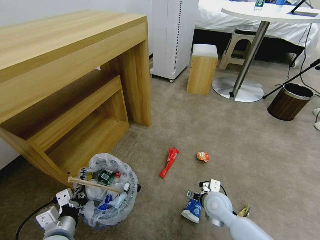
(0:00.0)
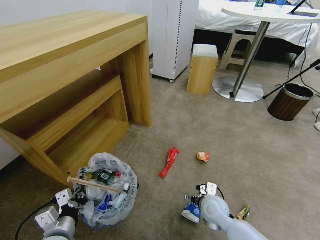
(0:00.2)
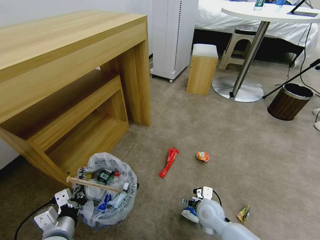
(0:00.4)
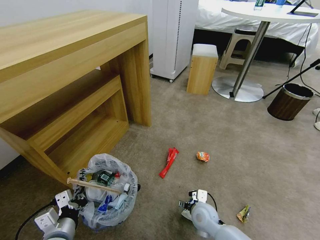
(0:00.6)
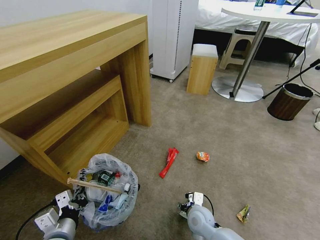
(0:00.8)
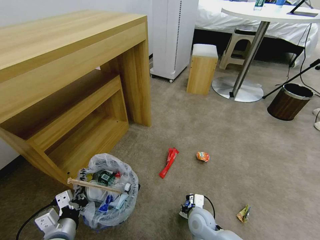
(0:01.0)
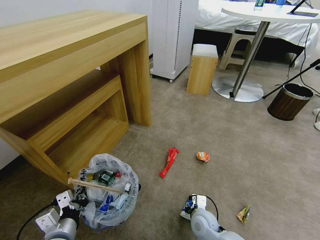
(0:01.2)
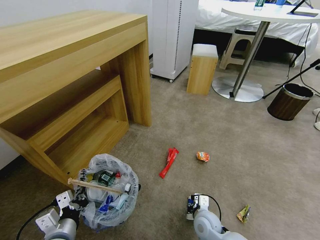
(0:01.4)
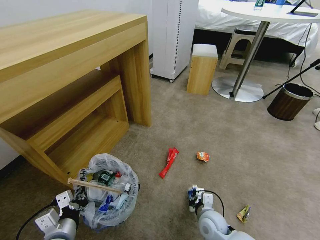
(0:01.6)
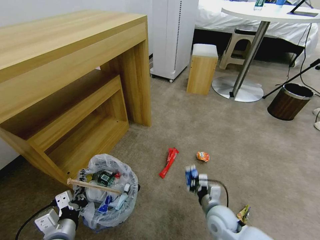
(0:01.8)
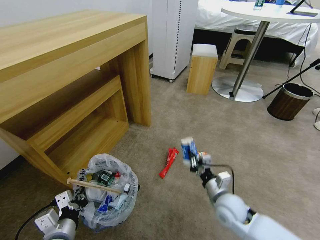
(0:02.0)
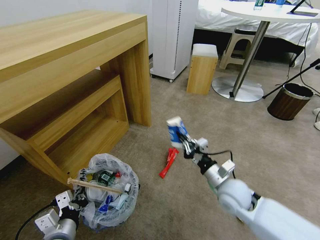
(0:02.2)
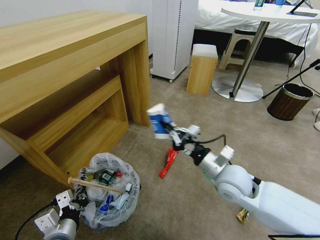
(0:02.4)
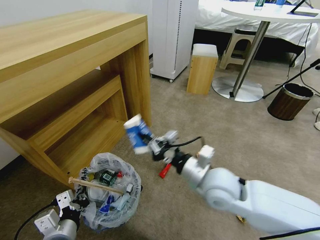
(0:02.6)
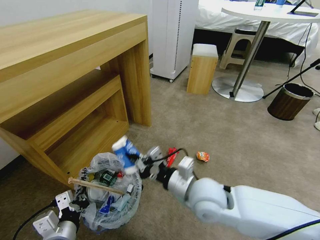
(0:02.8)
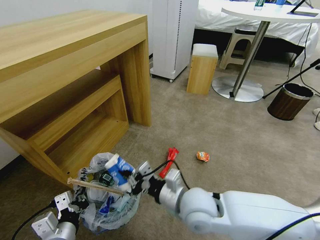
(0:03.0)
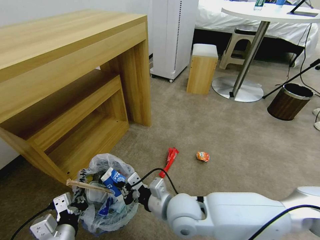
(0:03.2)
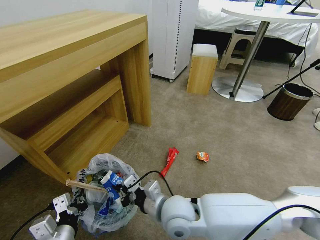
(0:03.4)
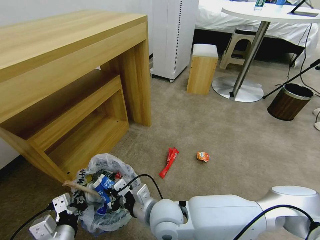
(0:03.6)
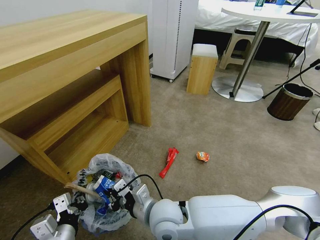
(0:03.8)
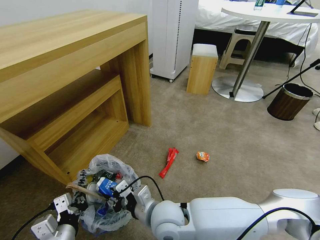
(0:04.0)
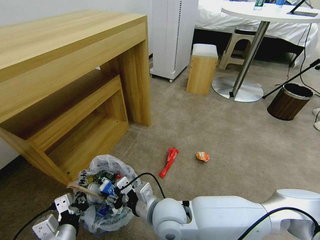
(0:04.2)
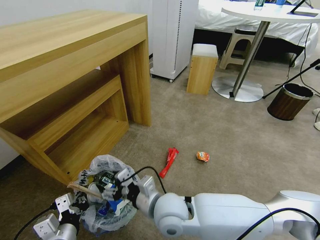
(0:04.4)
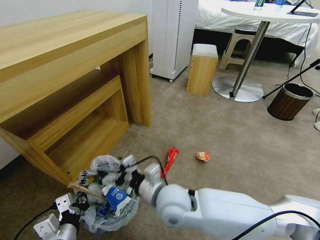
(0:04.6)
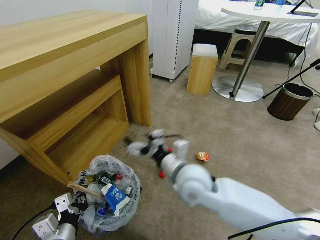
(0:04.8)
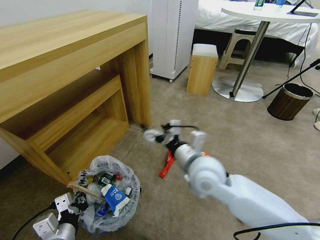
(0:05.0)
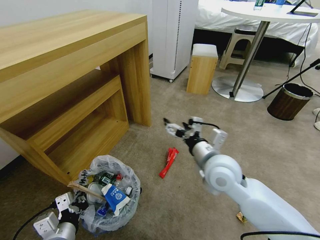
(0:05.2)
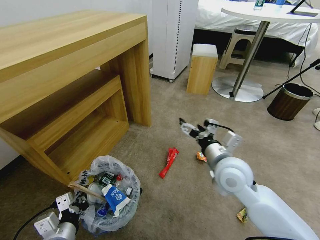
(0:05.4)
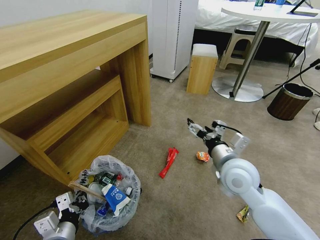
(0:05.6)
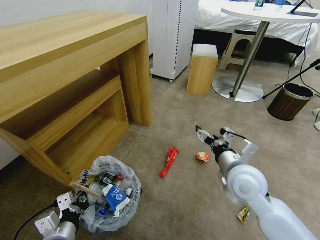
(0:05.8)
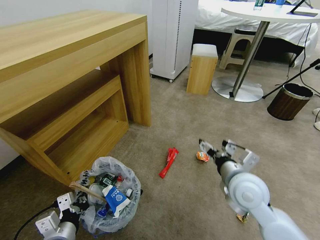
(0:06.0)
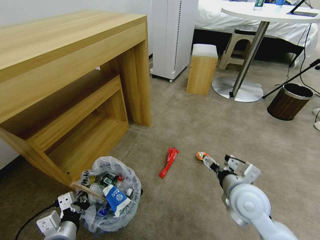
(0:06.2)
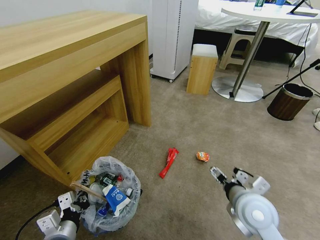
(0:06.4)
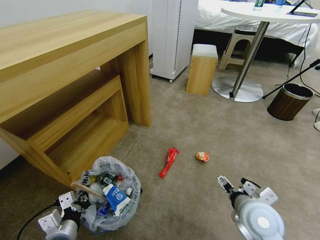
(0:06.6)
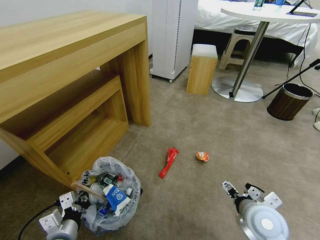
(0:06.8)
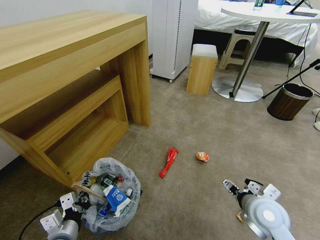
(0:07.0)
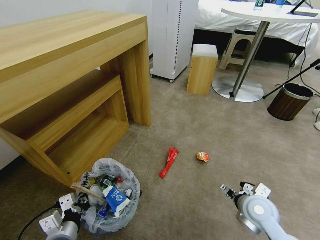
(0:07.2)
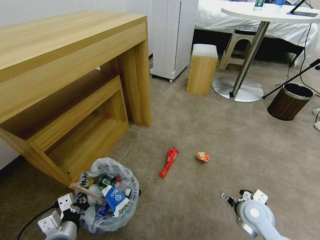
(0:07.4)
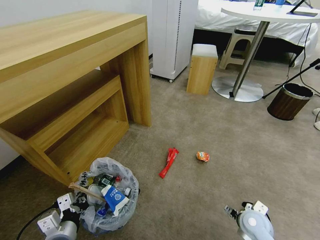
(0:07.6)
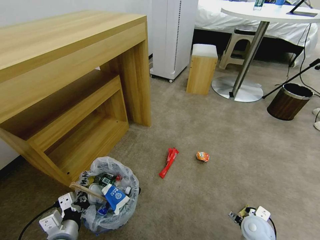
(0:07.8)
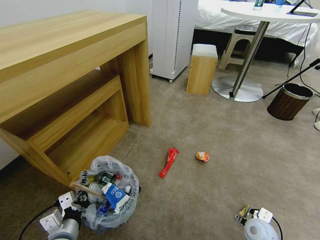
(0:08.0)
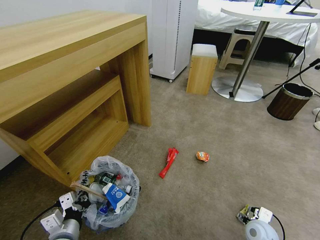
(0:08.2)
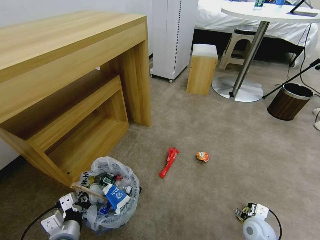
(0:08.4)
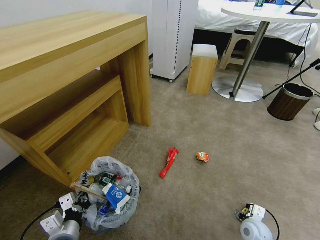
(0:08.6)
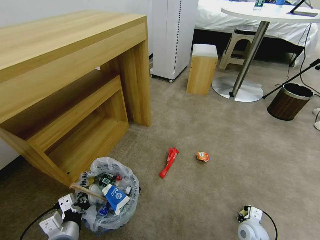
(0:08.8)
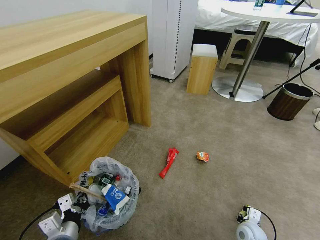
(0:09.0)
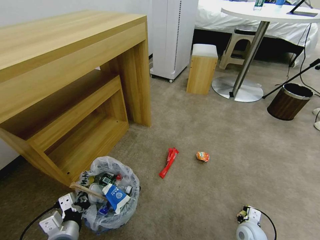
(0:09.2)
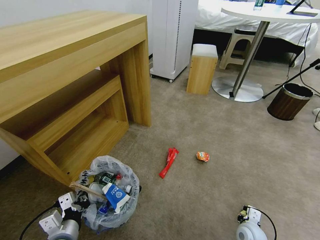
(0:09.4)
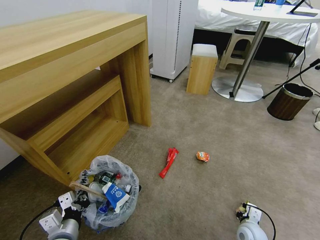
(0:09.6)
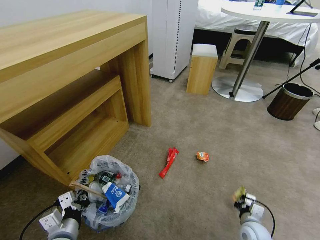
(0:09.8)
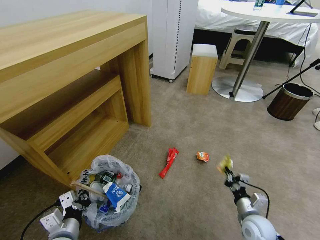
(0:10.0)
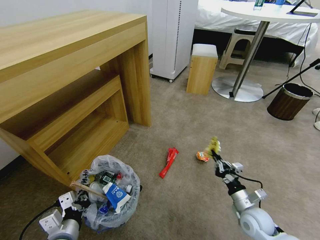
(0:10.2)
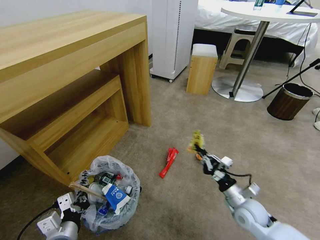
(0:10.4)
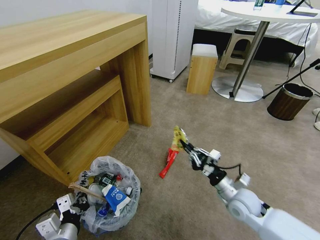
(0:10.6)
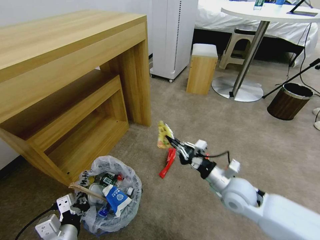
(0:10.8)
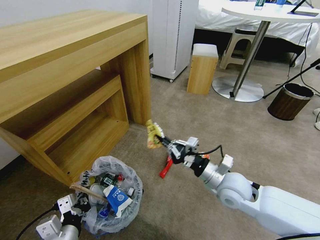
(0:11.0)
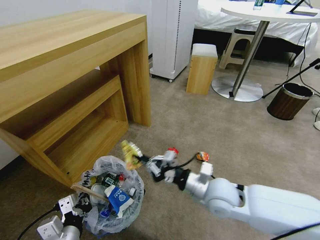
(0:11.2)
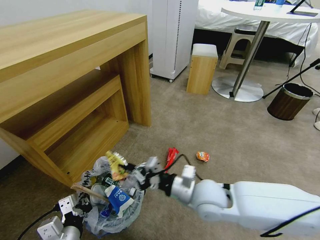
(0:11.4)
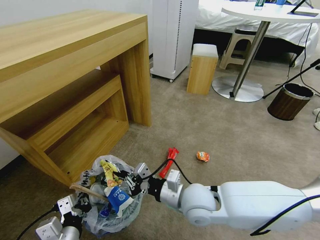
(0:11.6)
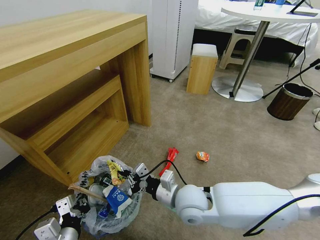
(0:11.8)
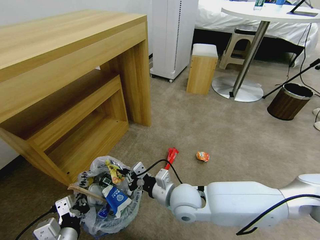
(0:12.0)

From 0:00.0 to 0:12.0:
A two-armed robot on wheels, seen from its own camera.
Task of the whole recording: Pick up the trash bin and place the garbage on the floor into it.
From 0:00.0 to 0:01.6: The right gripper travels downward by about 5 cm, and closes its fingers.
From 0:01.6 to 0:03.0: The right gripper shifts about 20 cm upward and to the left.
From 0:03.0 to 0:04.4: The right gripper heads to the left, covering some 5 cm, and opens.
From 0:04.4 to 0:06.0: The right gripper heads to the right, covering roughly 20 cm.
From 0:06.0 to 0:07.6: The right gripper travels downward and to the right by about 20 cm.
From 0:07.6 to 0:09.0: The right gripper goes approximately 10 cm downward, and closes up.
From 0:09.0 to 0:10.4: The right gripper goes roughly 10 cm upward, and closes its fingers.
From 0:10.4 to 0:12.0: The right gripper moves to the left and upward, about 25 cm.

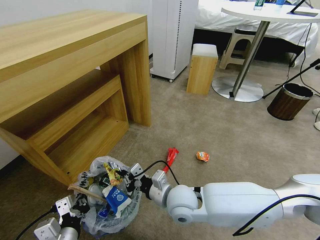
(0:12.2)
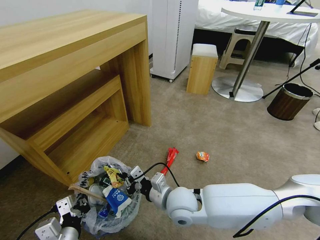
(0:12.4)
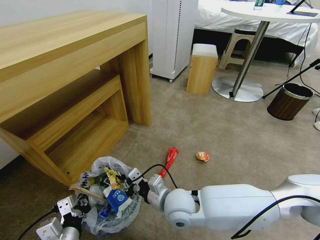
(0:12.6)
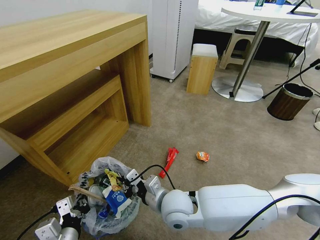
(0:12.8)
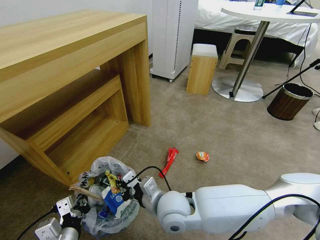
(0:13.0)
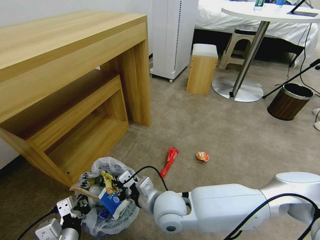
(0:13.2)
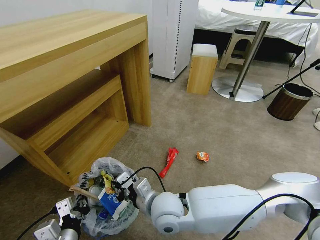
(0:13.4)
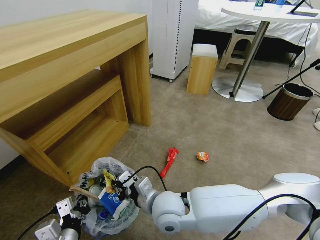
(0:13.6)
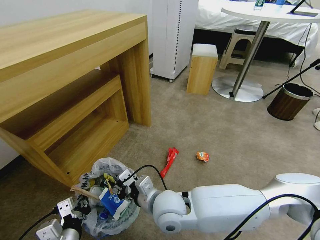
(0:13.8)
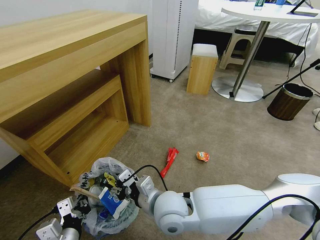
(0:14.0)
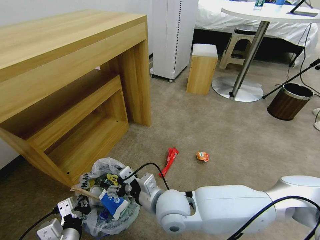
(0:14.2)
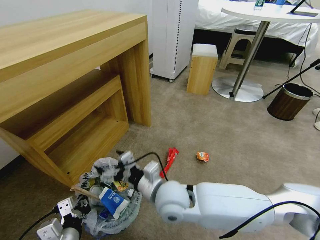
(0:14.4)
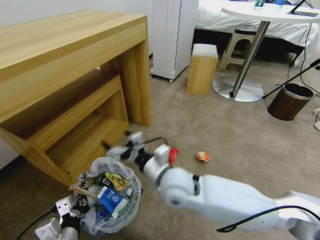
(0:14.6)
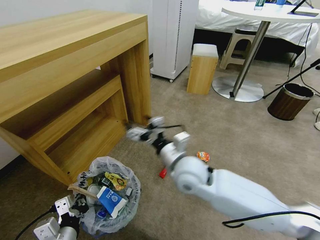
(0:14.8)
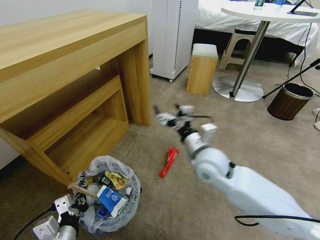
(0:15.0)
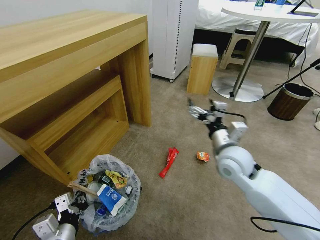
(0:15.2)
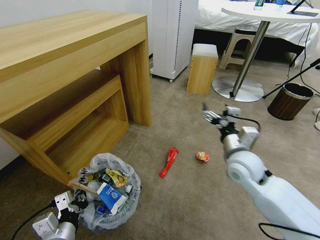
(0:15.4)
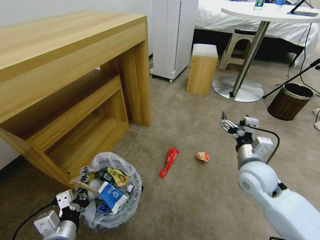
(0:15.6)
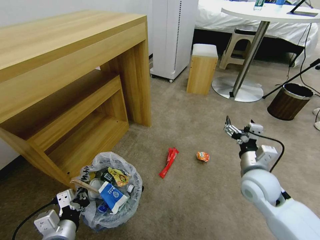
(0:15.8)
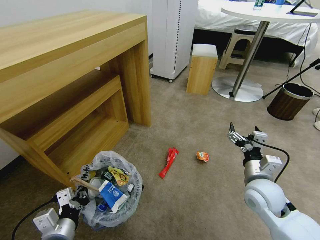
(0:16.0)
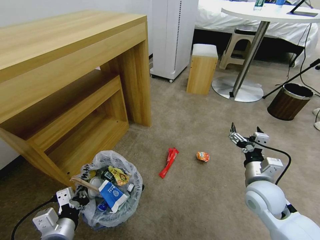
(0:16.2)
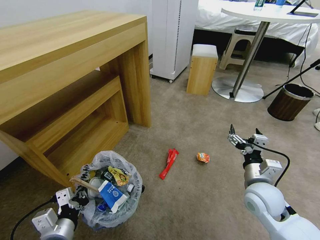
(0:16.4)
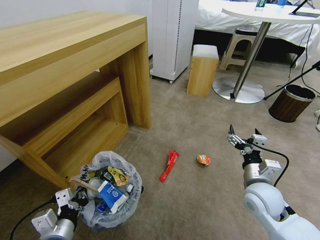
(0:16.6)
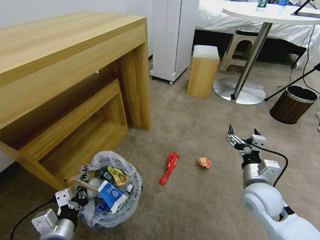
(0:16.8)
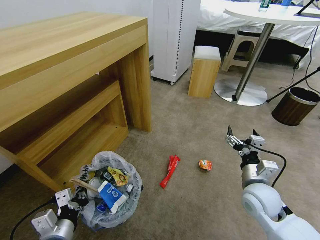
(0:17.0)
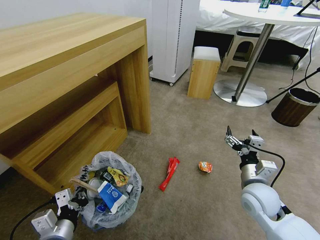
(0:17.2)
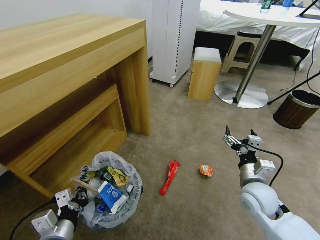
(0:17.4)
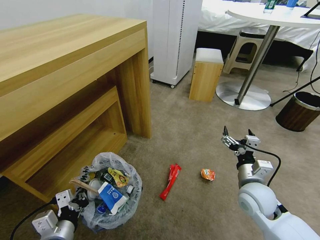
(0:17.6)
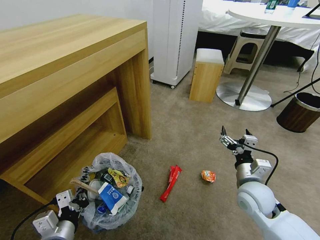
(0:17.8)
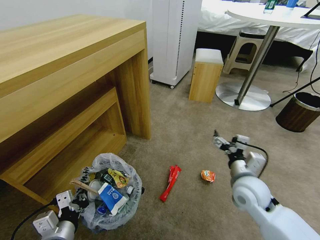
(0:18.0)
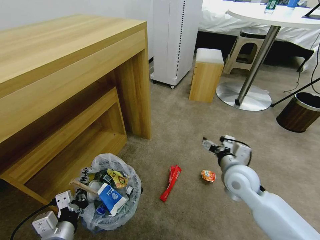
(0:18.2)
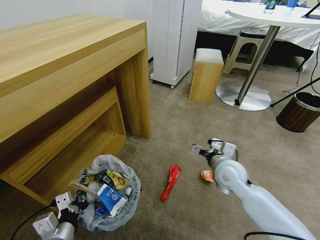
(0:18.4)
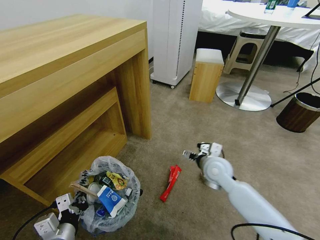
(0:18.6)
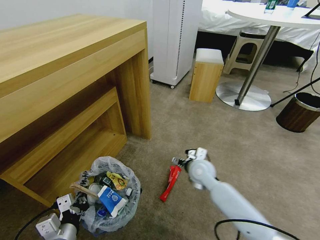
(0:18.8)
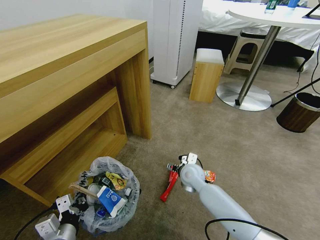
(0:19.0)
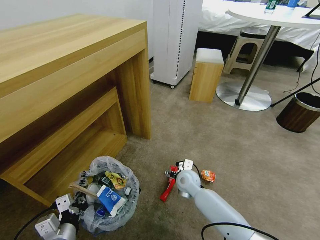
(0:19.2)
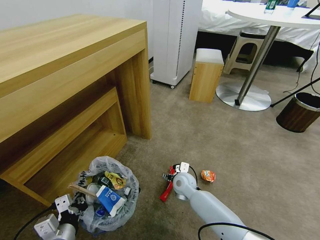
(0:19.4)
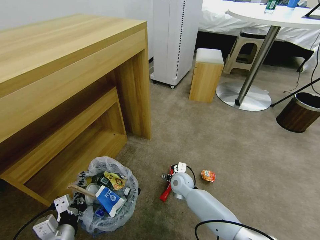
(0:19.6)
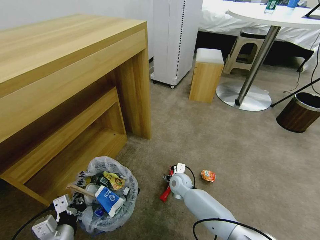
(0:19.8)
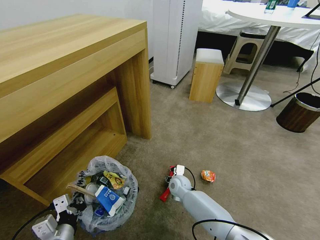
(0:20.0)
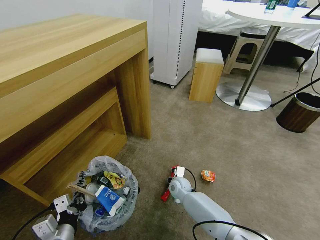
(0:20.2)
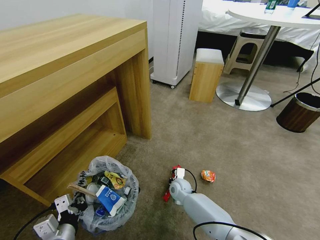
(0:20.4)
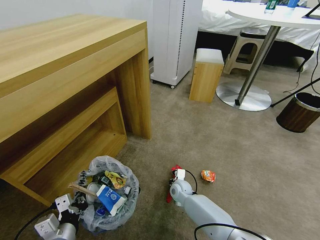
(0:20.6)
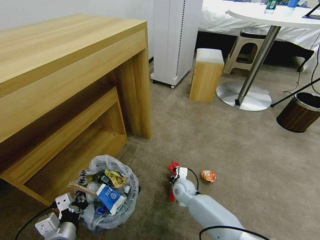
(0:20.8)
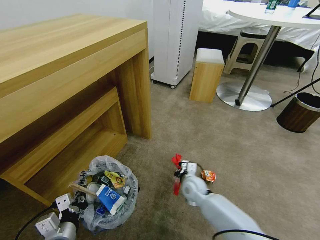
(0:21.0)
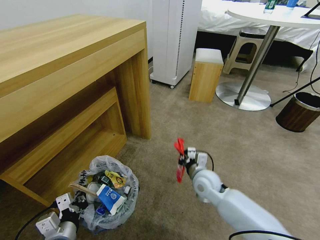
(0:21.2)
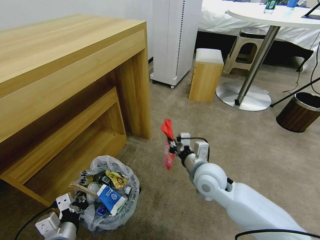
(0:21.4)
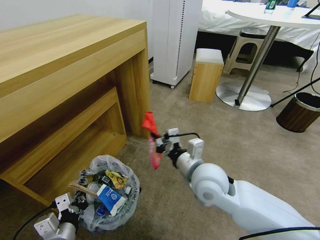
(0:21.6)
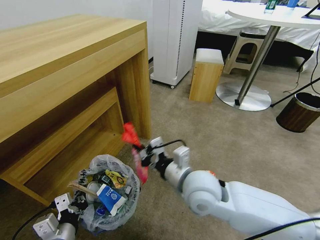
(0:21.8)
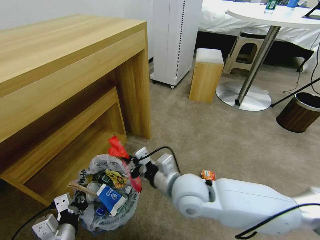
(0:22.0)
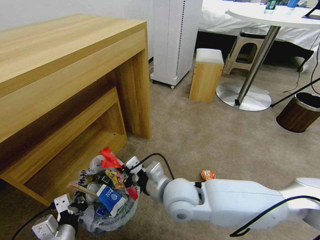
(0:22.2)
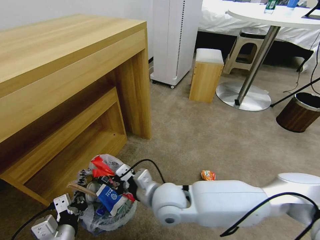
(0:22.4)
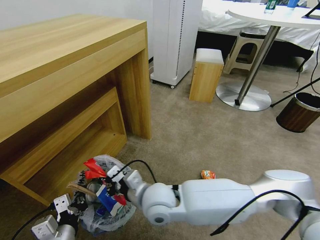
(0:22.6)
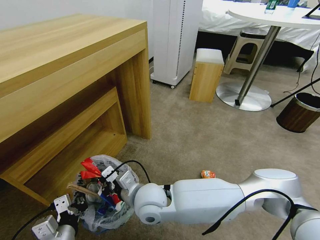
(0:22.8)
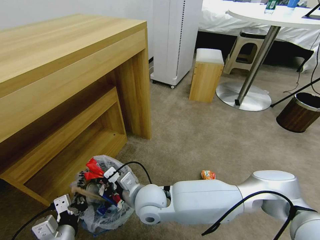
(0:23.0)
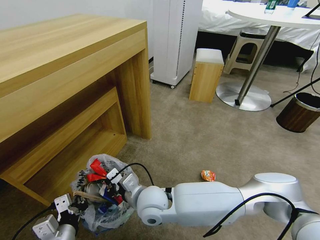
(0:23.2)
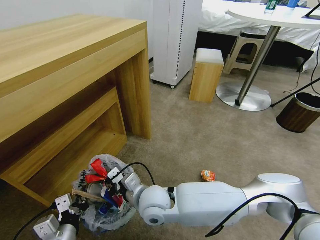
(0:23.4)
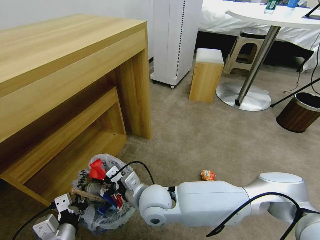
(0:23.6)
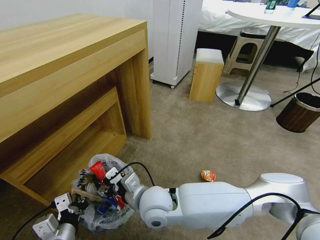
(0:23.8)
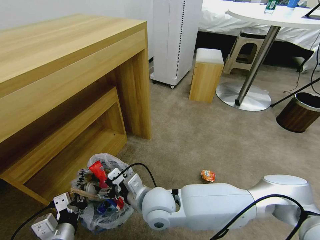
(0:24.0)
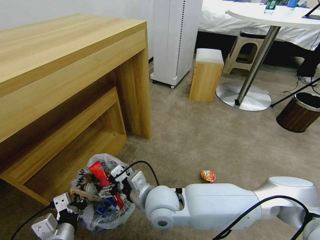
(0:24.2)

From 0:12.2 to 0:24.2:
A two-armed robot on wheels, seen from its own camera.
Task of the whole recording: Pick up the trash bin and place the garbage on the floor into it.
From 0:12.2 to 0:13.8: The right gripper shifts by about 5 cm.
From 0:13.8 to 0:15.2: The right gripper shifts approximately 20 cm to the right, forward and upward, and opens up.
From 0:15.2 to 0:16.6: The right gripper travels to the right, downward and backward by roughly 15 cm.
From 0:16.6 to 0:18.2: The right gripper heads to the left, covering some 5 cm.
From 0:18.2 to 0:19.8: The right gripper travels downward and to the left by approximately 25 cm.
From 0:19.8 to 0:21.2: The right gripper is displaced upward, to the right and backward by approximately 15 cm, and closes up.
From 0:21.2 to 0:22.6: The right gripper travels to the left, backward and upward by some 20 cm.
From 0:22.6 to 0:24.2: The right gripper opens its fingers.
